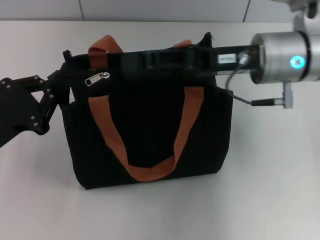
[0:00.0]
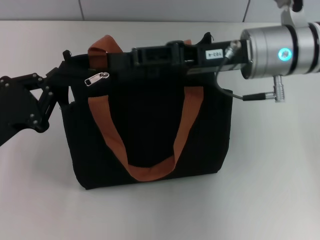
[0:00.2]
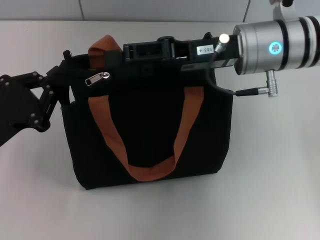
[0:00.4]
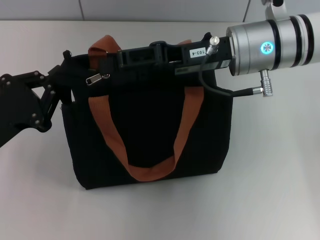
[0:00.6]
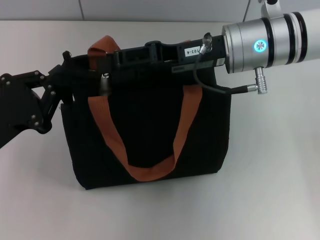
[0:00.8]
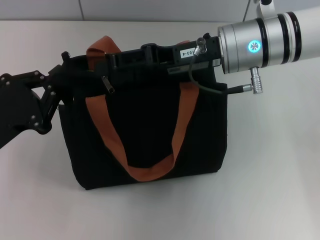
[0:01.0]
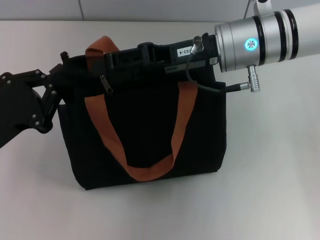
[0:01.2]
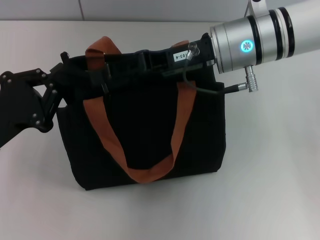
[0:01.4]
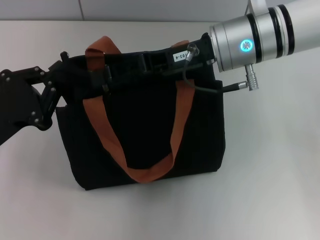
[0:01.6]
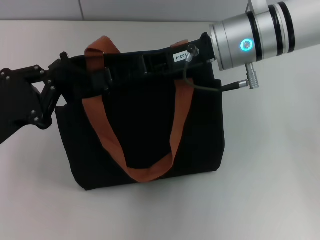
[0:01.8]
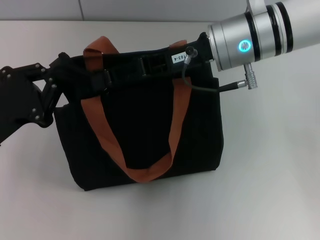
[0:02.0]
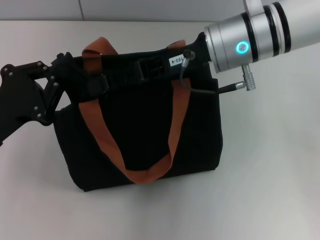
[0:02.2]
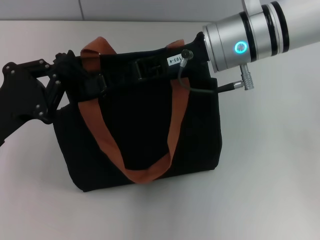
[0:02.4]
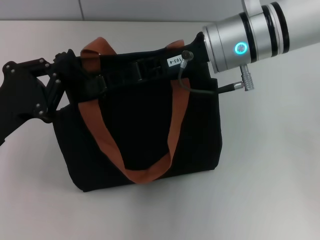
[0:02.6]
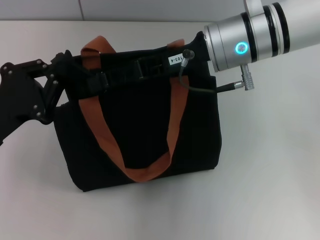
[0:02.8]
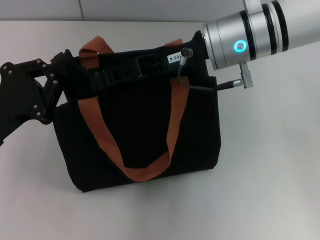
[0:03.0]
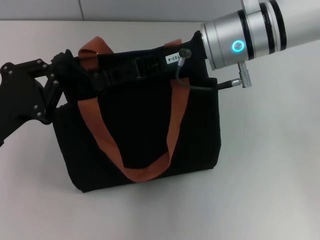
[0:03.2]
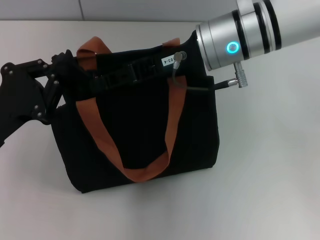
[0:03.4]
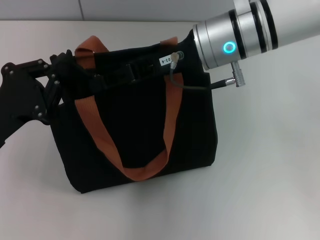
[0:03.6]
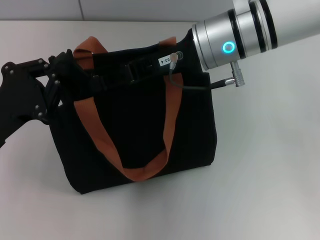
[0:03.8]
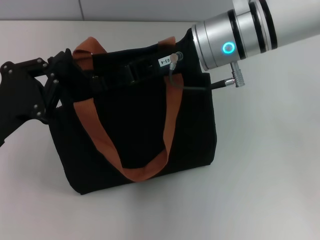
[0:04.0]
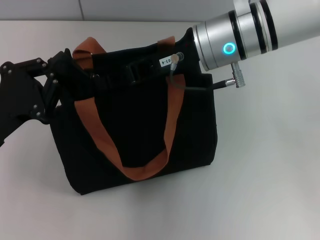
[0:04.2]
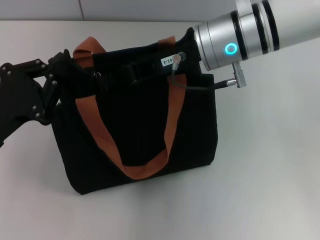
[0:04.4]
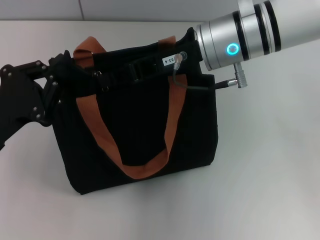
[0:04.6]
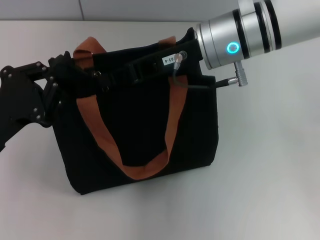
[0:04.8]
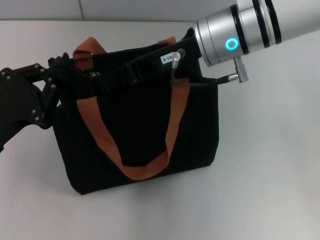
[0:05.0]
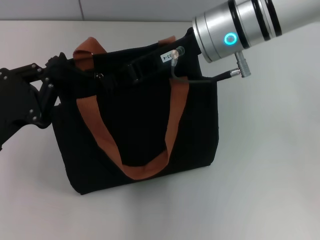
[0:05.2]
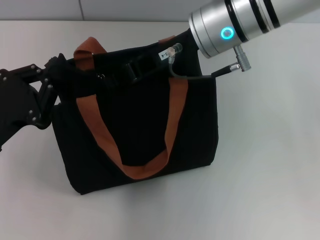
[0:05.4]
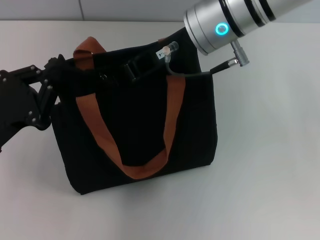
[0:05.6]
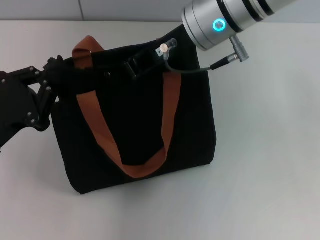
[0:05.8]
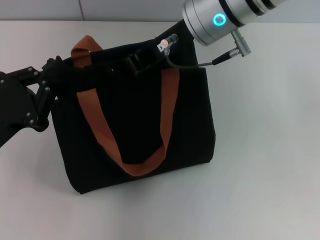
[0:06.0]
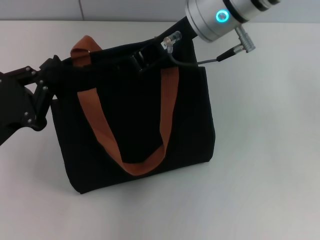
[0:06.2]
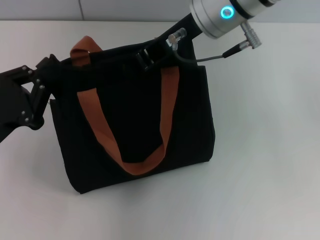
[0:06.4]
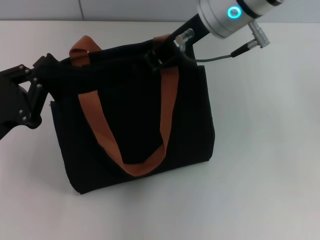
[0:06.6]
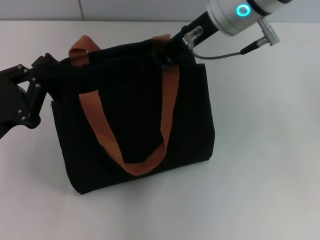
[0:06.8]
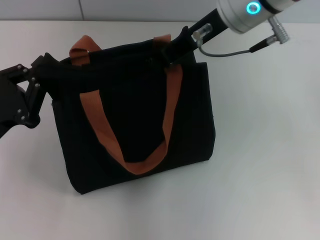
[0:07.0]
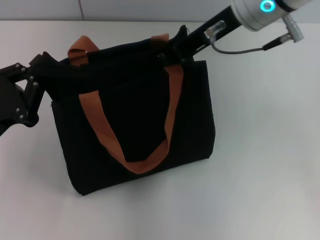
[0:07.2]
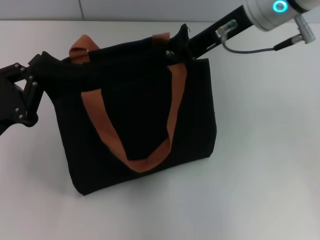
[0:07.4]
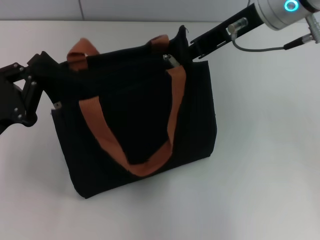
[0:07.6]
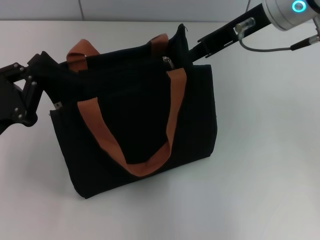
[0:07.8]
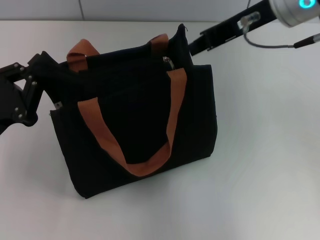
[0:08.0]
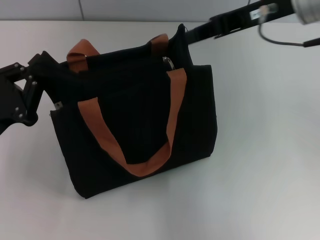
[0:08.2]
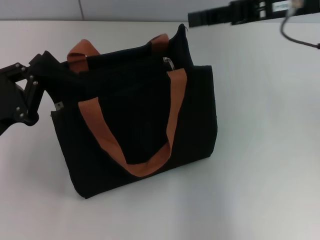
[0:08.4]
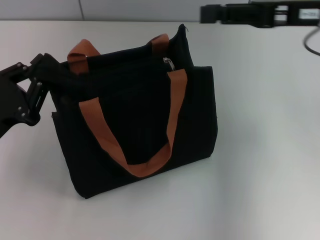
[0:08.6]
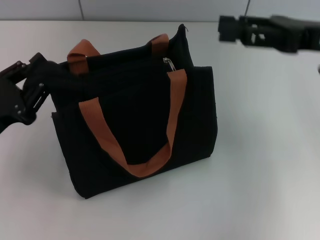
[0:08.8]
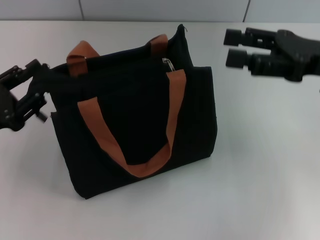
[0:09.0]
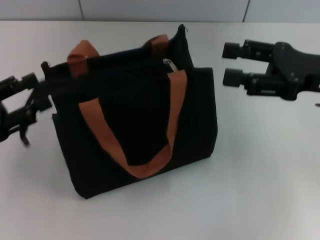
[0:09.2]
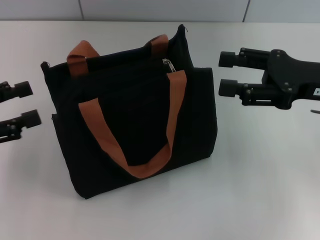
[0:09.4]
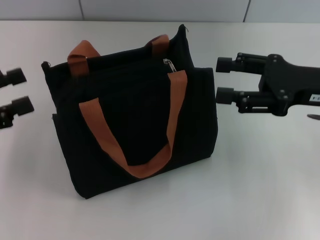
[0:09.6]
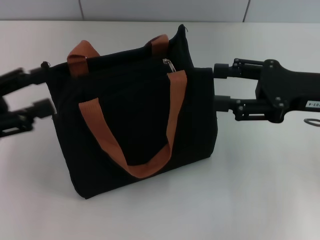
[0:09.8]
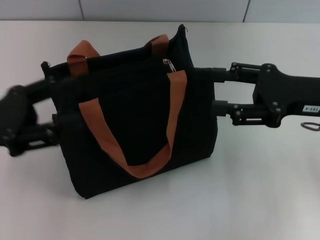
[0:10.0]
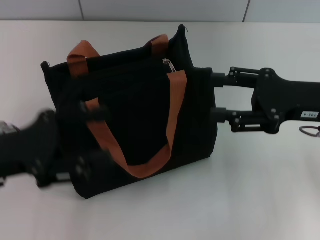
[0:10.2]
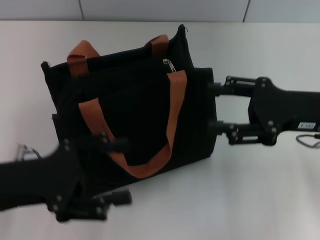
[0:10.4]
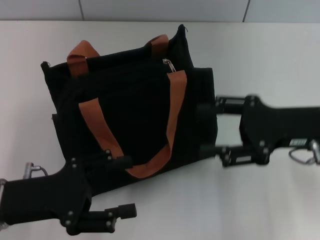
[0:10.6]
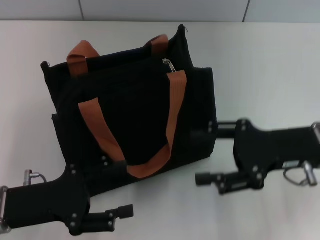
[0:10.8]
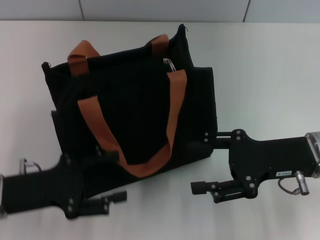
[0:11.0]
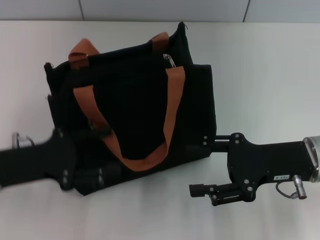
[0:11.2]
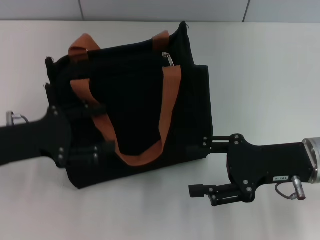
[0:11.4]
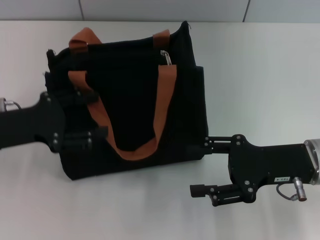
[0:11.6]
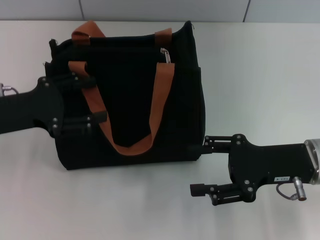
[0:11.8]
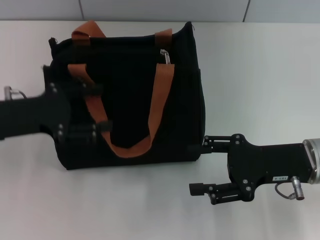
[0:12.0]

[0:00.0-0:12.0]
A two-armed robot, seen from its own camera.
Step, 0:00.0 to 0:07.4: Pull up the zipper with your right hand.
Step, 0:07.6 to 0:09.2: Grab the zipper with your left hand.
0:00.0 to 0:01.6: The right gripper changes place by some 5 cm.
0:01.6 to 0:03.0: The grippers stay close to where they were, moving slightly.
0:03.0 to 0:04.4: The right gripper closes.
0:04.4 to 0:06.0: The right gripper changes place by about 5 cm.
0:06.0 to 0:07.6: The right gripper is displaced to the right by about 5 cm.
0:07.6 to 0:09.0: The right gripper shifts some 15 cm to the right and downward, and opens.
0:09.0 to 0:10.4: The right gripper moves approximately 5 cm, while the left gripper moves to the right, some 5 cm, and opens.
0:10.4 to 0:12.0: The left gripper travels forward by approximately 10 cm. The right gripper moves roughly 5 cm.

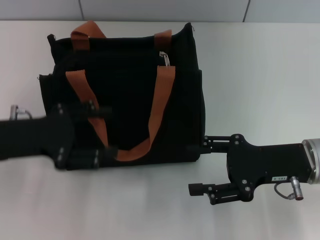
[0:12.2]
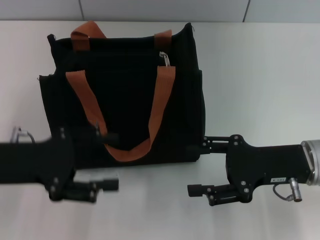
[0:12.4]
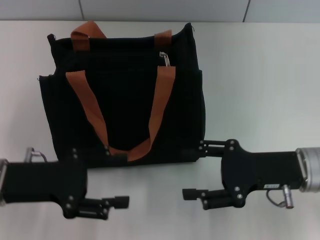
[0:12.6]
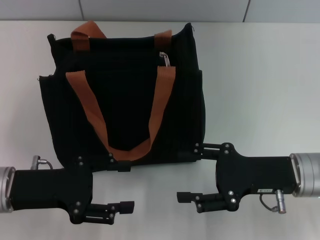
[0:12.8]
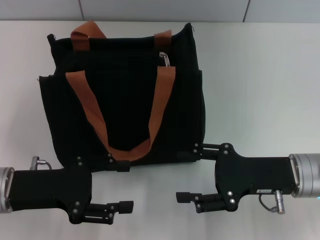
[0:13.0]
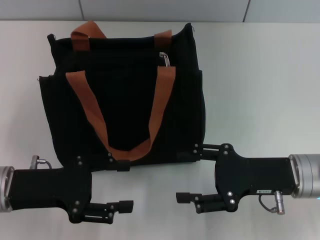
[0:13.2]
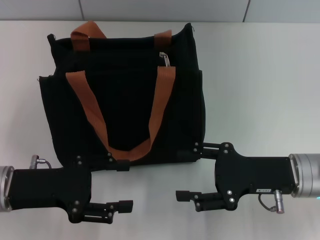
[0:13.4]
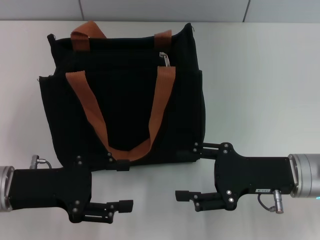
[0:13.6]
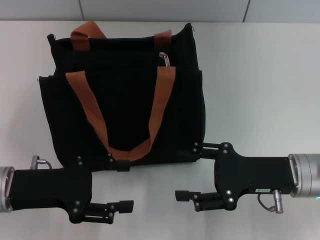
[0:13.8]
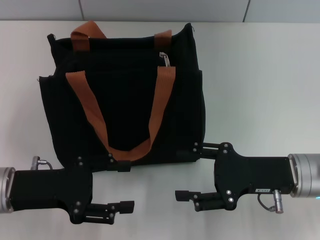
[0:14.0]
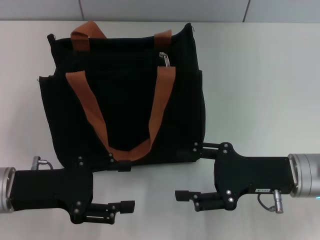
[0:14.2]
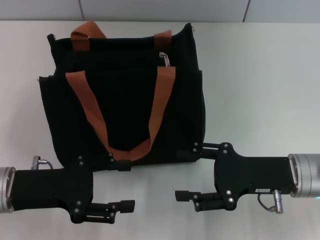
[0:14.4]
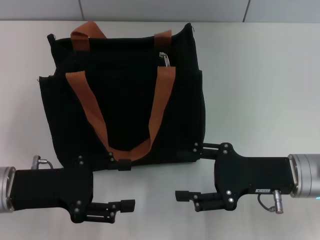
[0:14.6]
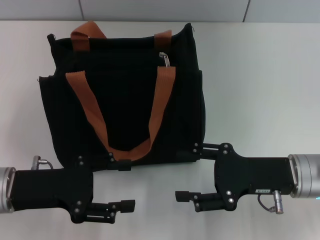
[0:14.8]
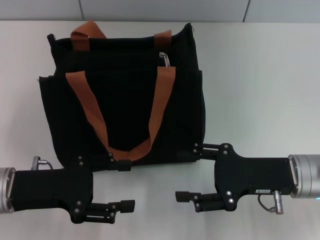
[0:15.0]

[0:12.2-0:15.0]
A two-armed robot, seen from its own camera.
0:12.2 to 0:13.6: The left gripper ends up approximately 5 cm from where it was.
0:13.6 to 0:15.0: Neither gripper changes place.

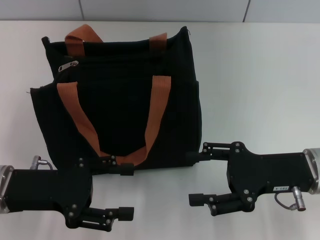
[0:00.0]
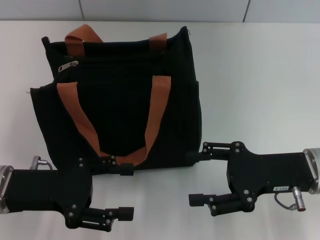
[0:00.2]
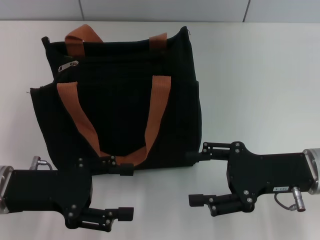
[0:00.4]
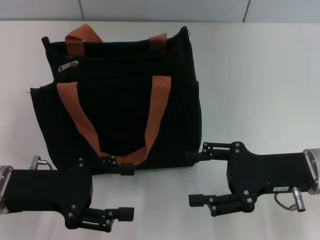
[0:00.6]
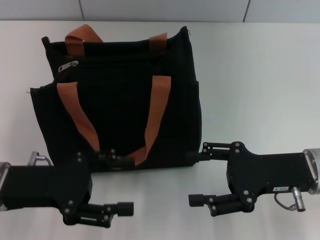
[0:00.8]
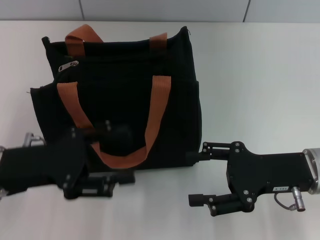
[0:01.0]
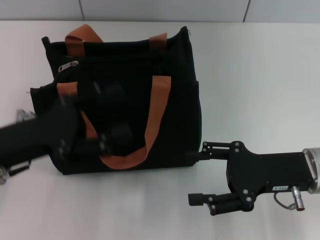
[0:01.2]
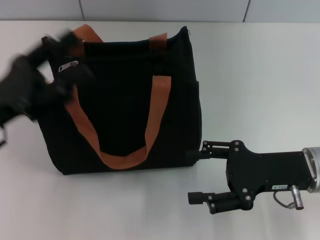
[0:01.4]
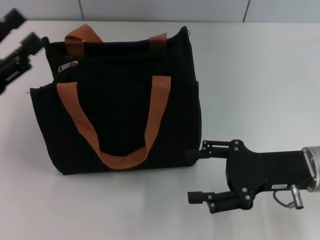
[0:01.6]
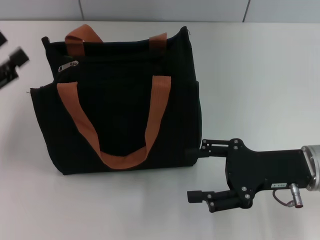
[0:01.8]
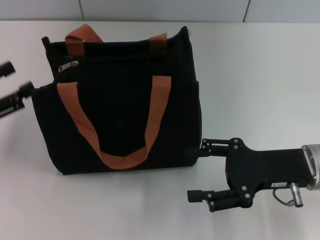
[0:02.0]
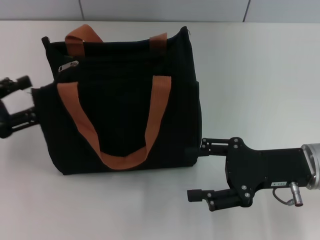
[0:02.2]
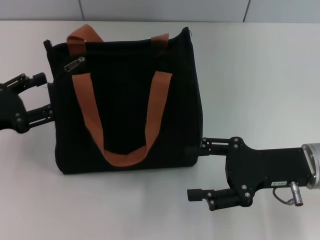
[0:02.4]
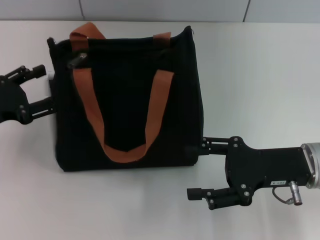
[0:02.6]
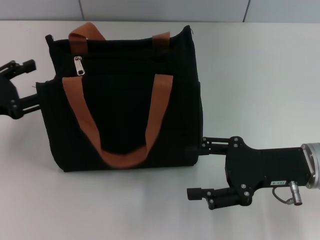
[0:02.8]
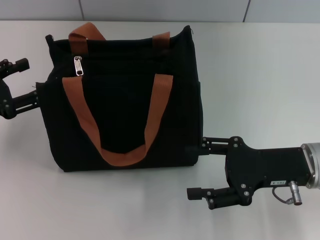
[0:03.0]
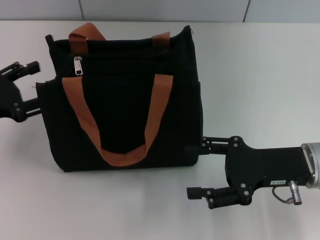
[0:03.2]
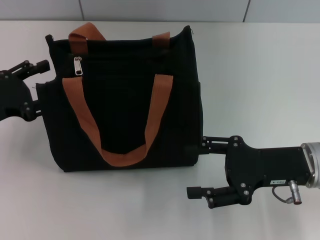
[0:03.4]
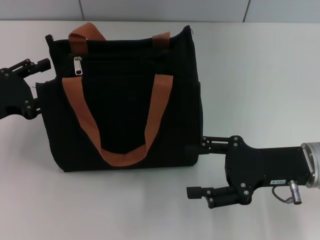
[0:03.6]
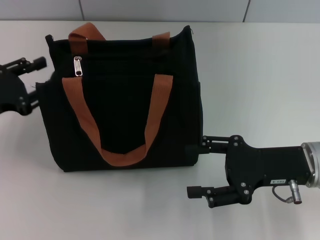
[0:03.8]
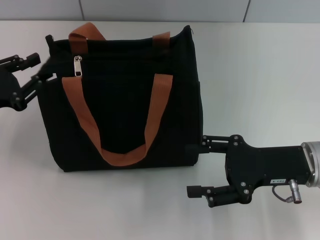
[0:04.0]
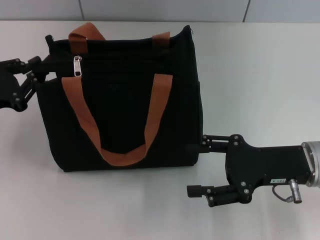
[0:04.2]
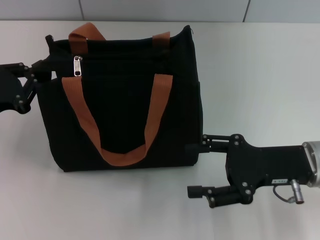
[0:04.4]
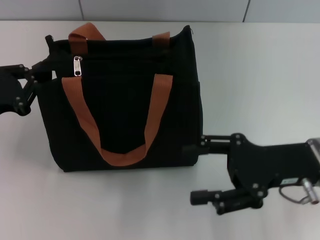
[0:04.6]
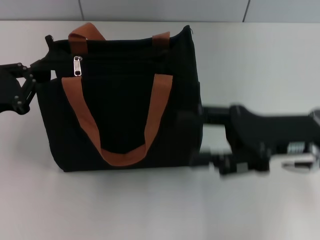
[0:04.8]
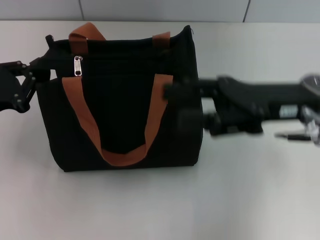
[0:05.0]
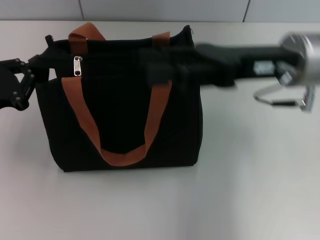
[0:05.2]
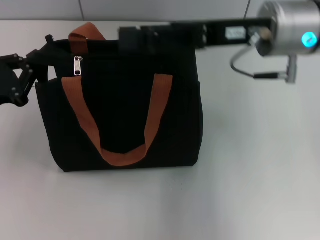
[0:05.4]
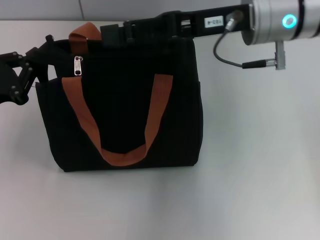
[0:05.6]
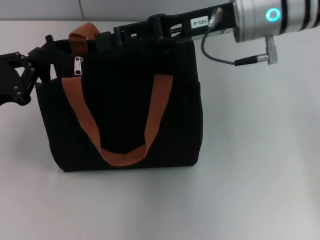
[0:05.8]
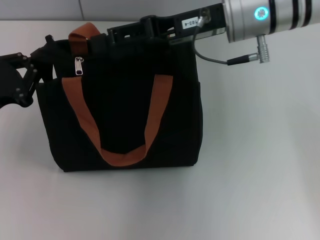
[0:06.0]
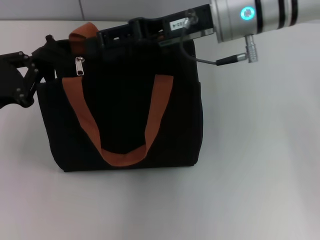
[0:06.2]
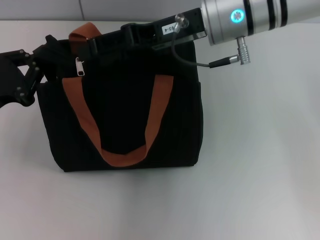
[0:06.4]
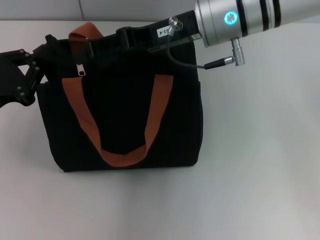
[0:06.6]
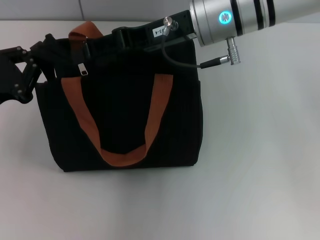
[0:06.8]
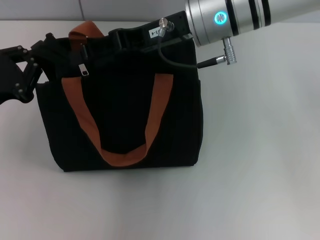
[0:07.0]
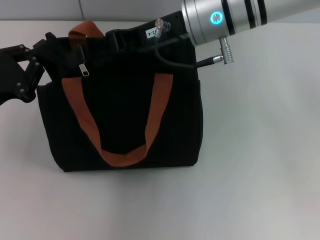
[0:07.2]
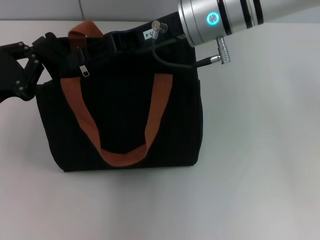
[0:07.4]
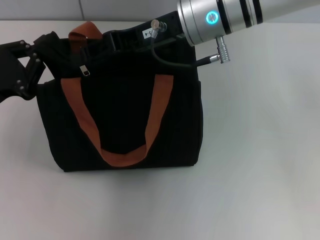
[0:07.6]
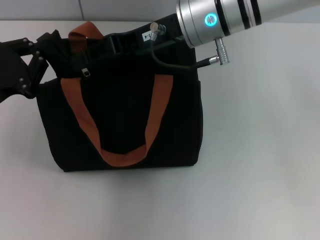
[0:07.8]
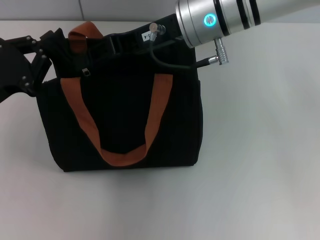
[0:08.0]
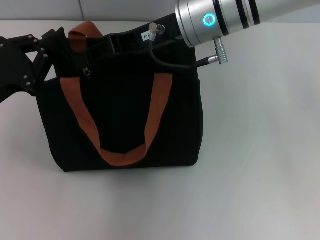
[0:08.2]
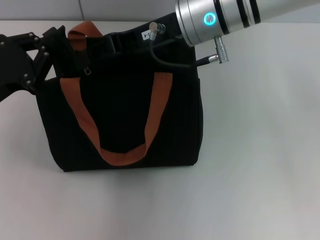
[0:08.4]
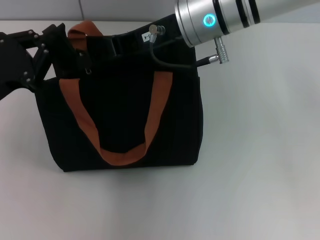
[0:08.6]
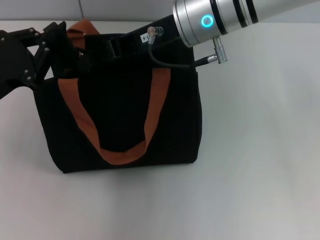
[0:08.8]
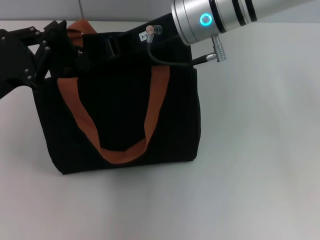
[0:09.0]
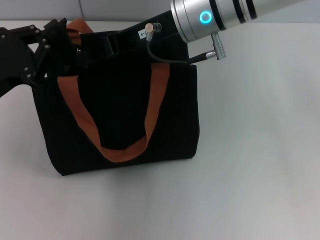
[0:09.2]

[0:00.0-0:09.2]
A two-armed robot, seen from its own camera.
0:00.0 to 0:01.6: The left gripper shifts by about 5 cm.
0:01.6 to 0:03.0: The left gripper changes place by roughly 5 cm.
0:03.0 to 0:04.6: The left gripper closes up.
0:04.6 to 0:06.2: The right gripper is displaced forward, to the left and upward by some 20 cm.
0:06.2 to 0:09.2: The grippers stay close to where they were, moving slightly.
